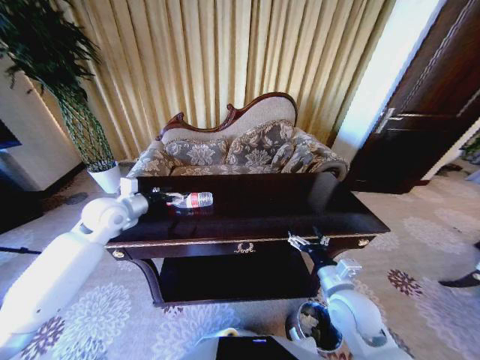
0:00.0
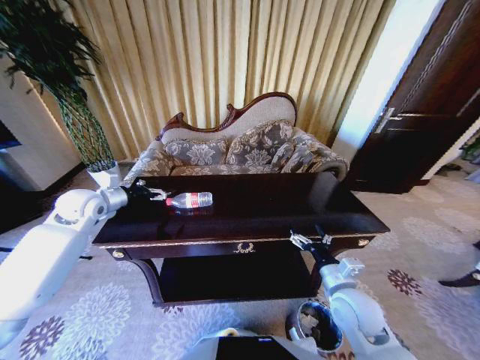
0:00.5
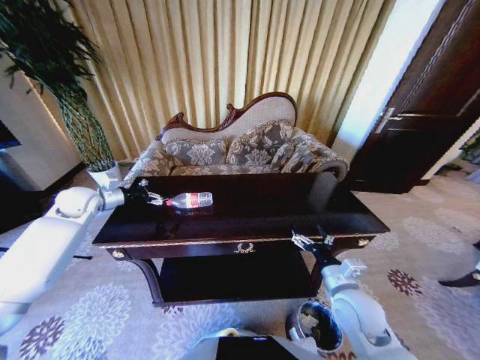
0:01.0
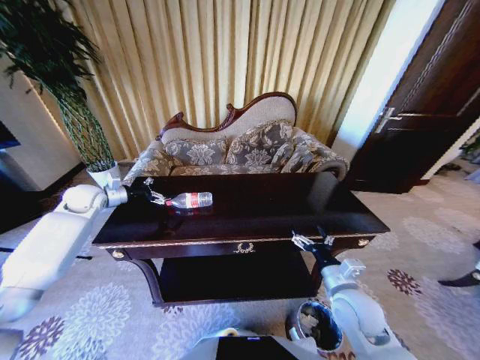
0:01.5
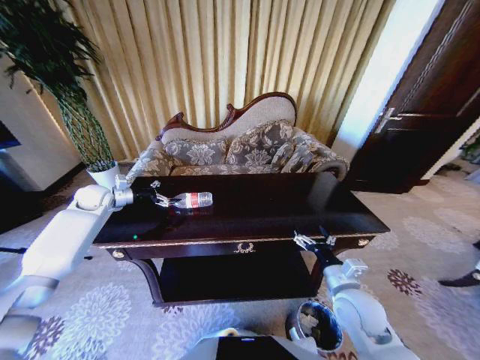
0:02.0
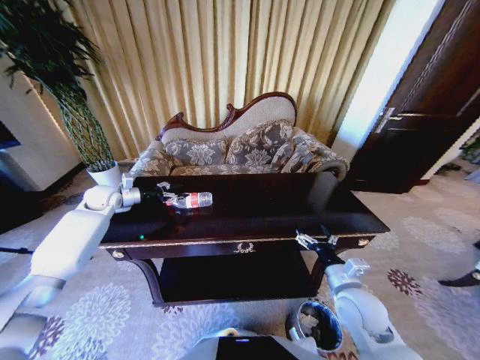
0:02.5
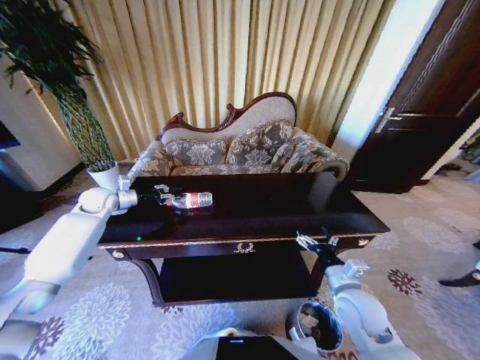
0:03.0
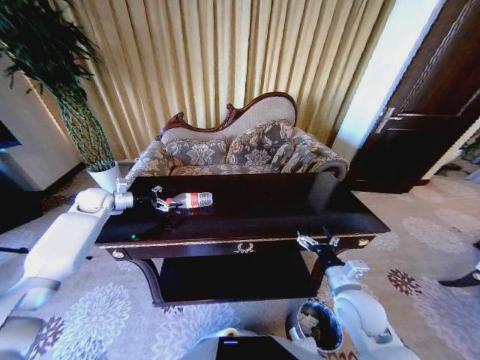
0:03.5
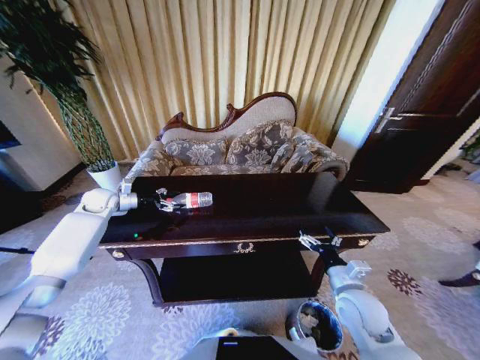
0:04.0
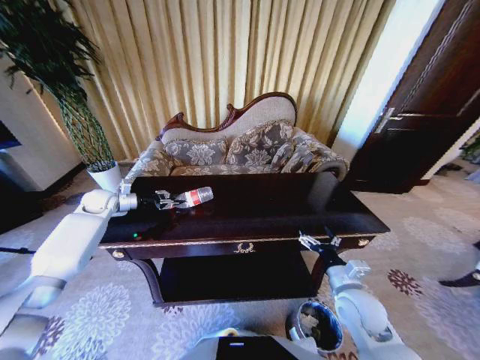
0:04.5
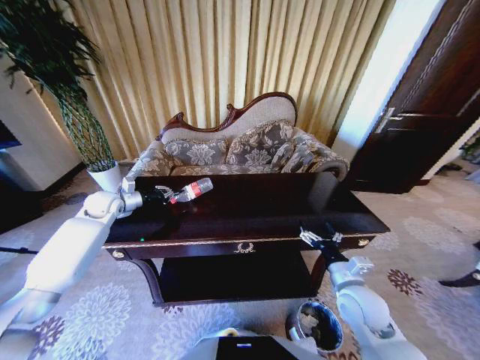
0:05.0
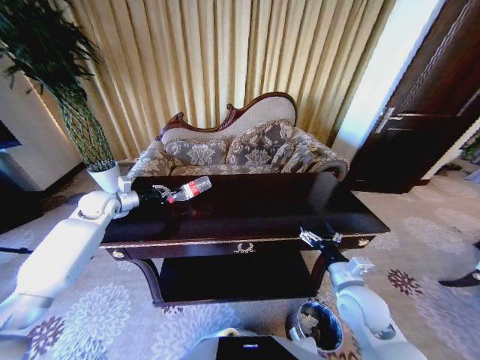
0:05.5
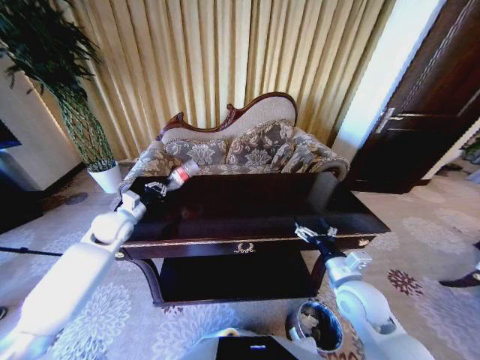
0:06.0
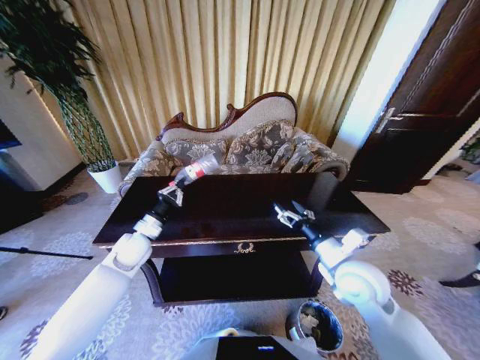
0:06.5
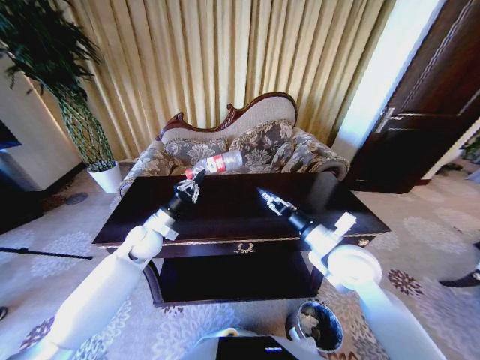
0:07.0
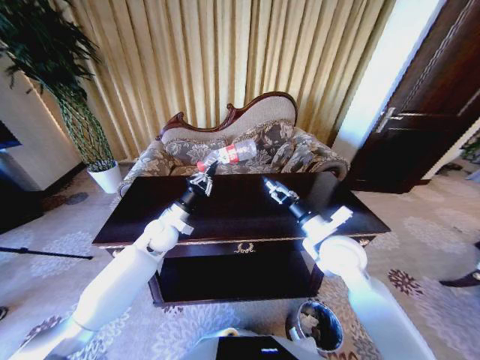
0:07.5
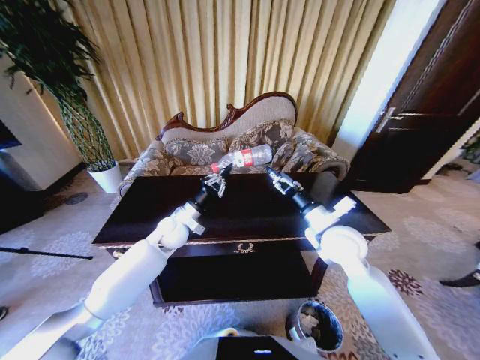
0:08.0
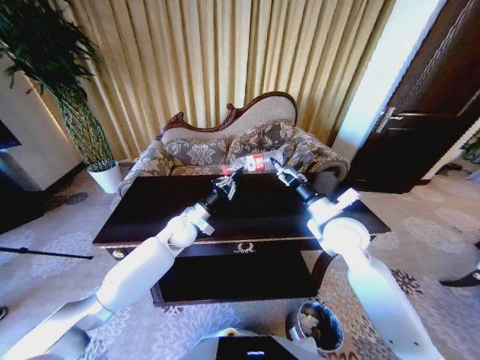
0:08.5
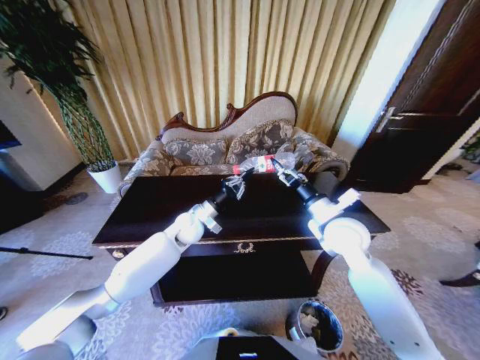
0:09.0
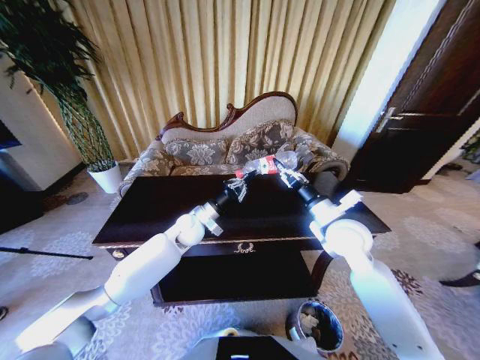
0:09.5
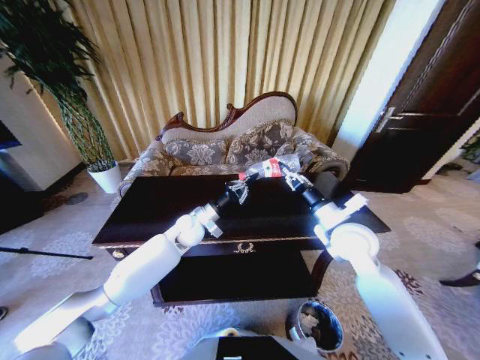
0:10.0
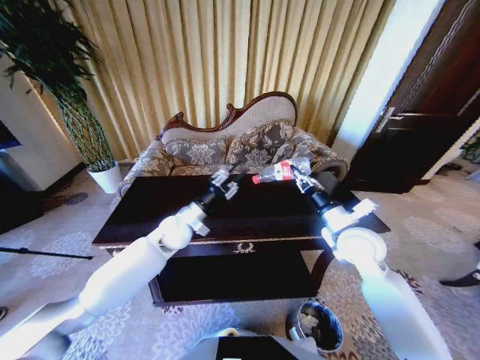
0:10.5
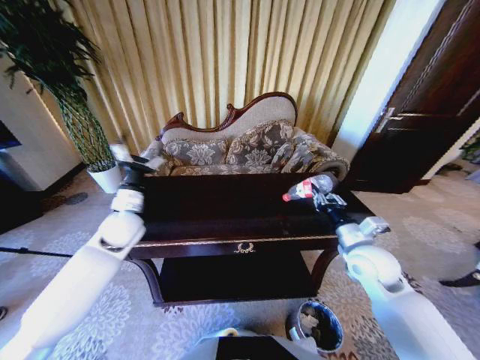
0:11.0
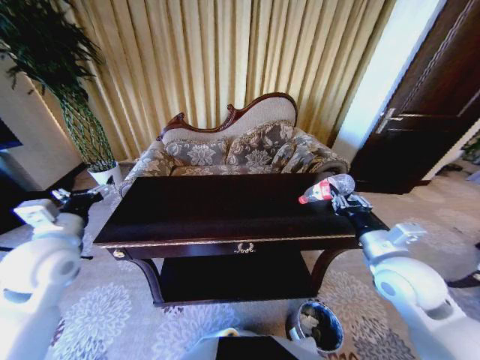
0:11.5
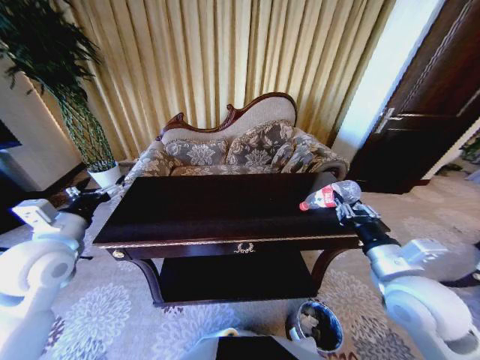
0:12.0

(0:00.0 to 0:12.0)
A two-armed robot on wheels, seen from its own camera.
Task of the whole recording: Move to the front of the table and place the trash on the table into the trash bin.
0:00.0 - 0:02.0: The left gripper shifts about 15 cm to the left and forward.
0:02.0 - 0:04.0: The left gripper closes, then reopens.
0:04.0 - 0:06.0: The left gripper is displaced backward and to the right by some 15 cm, and closes.
0:06.0 - 0:08.0: The right gripper goes roughly 15 cm forward and upward, while the left gripper moves to the right, about 15 cm.
0:08.0 - 0:10.0: The right gripper closes its fingers, while the left gripper changes place by roughly 5 cm.
0:10.0 - 0:12.0: The right gripper shifts roughly 15 cm backward. Meanwhile the left gripper shifts some 30 cm to the left, backward and upward, and opens up.

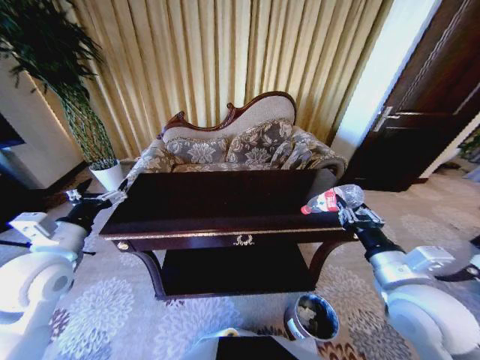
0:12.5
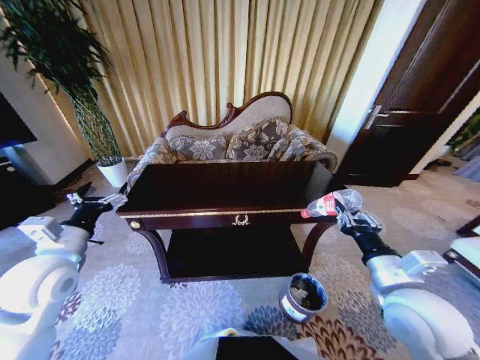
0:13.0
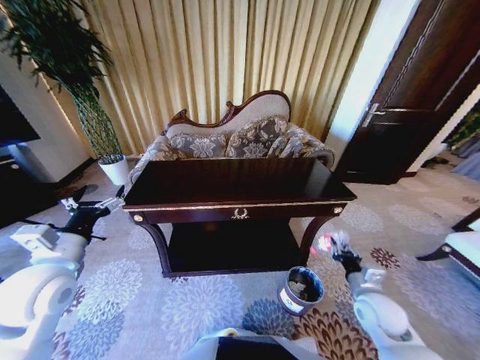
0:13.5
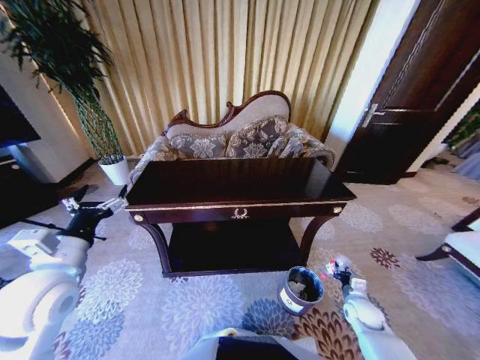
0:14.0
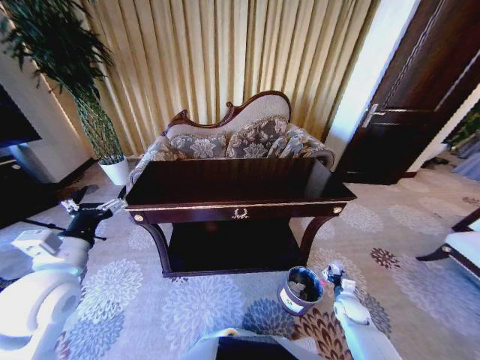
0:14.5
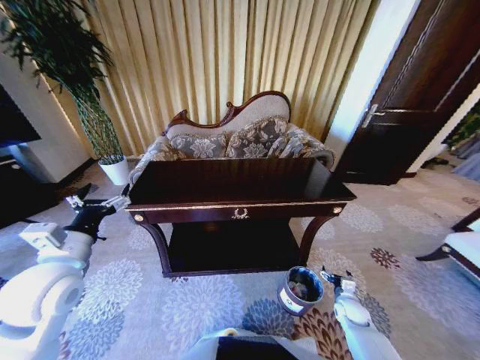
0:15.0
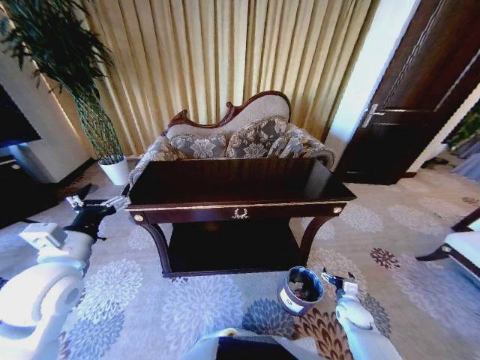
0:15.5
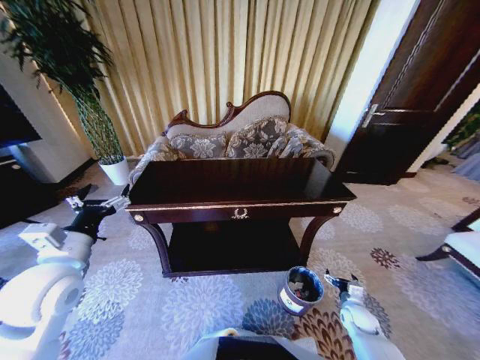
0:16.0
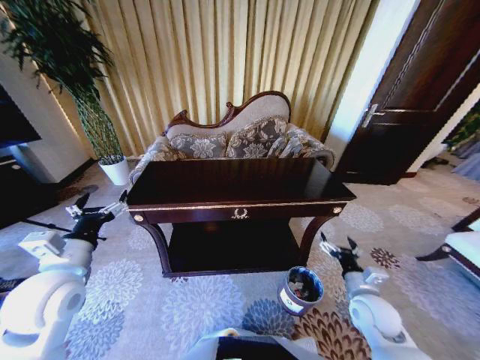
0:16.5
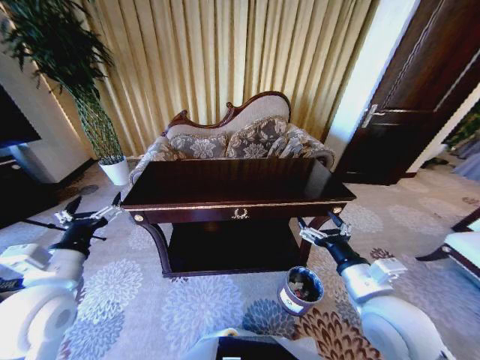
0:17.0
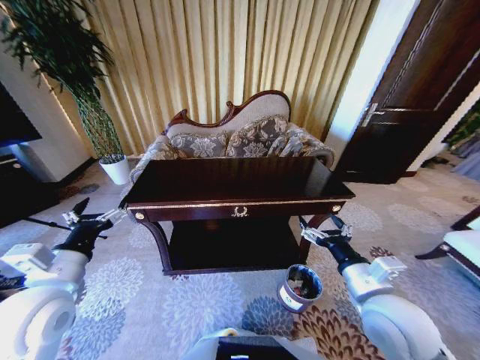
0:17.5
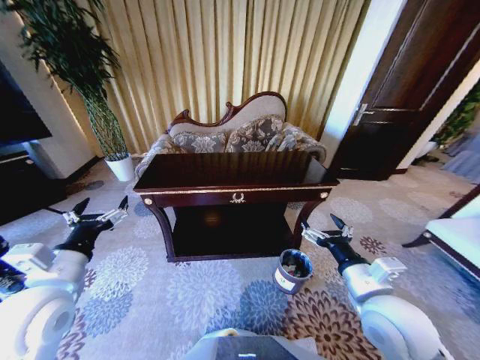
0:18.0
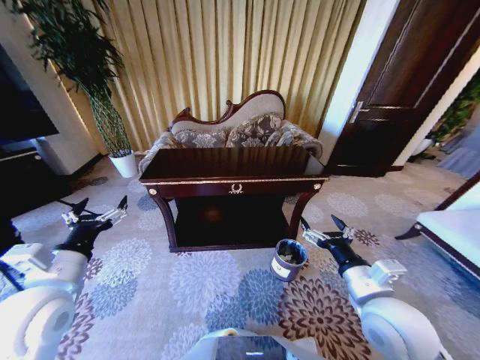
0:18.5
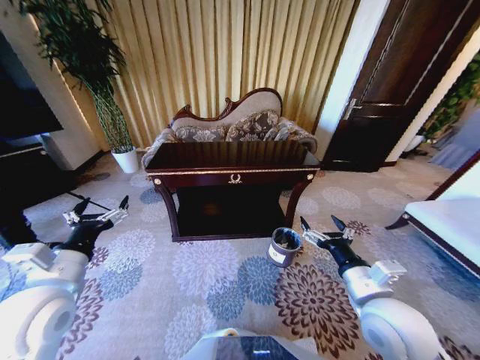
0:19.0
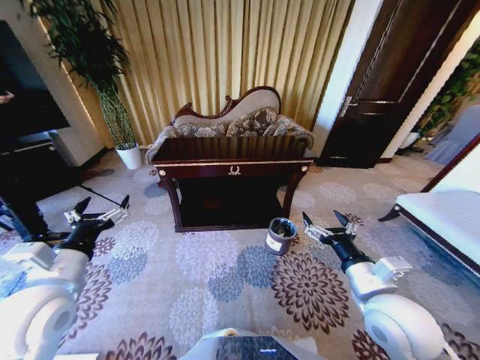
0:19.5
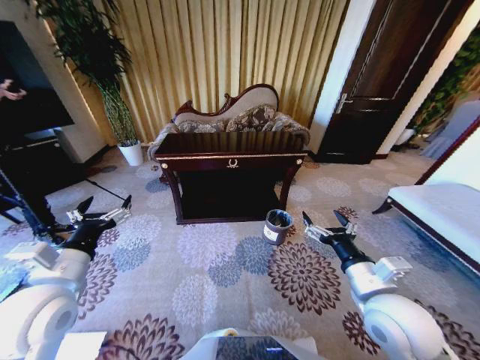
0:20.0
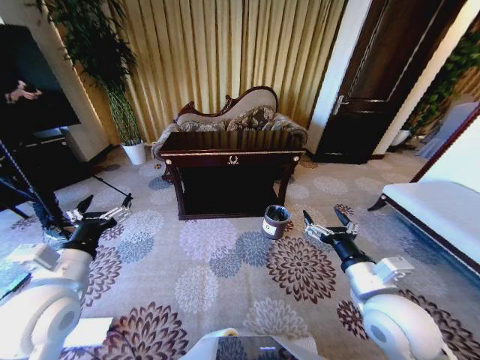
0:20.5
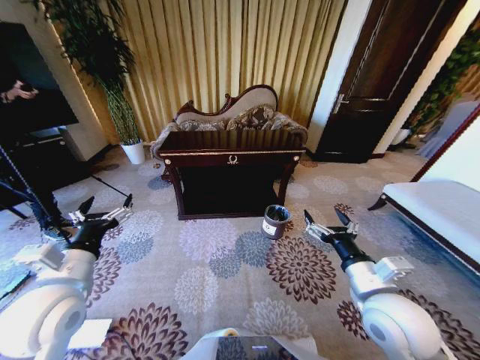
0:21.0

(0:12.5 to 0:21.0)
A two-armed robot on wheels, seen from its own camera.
Task of the whole recording: Move to the front of the table and place the trash on the table into the trash bin.
0:12.5 - 0:14.5: The right gripper travels downward by approximately 35 cm.
0:14.5 - 0:16.5: The right gripper goes about 15 cm upward, and opens its fingers.
0:16.5 - 0:19.0: The right gripper is displaced upward and to the left by roughly 20 cm.

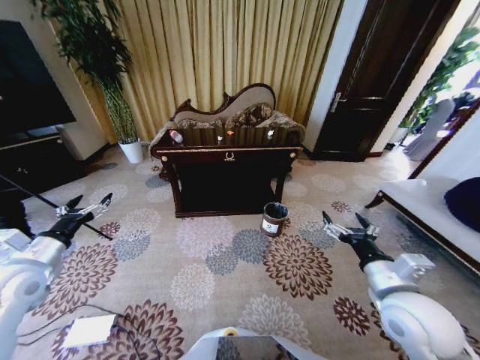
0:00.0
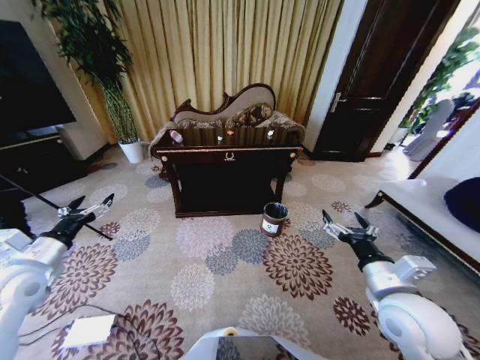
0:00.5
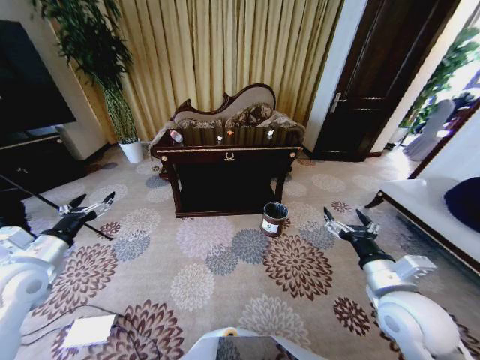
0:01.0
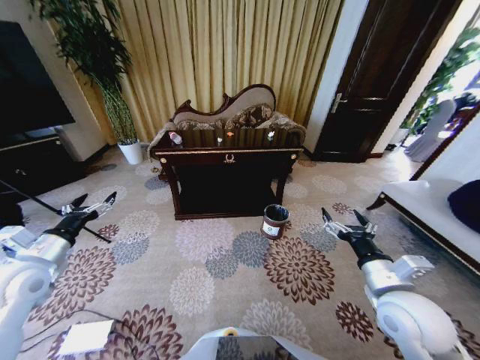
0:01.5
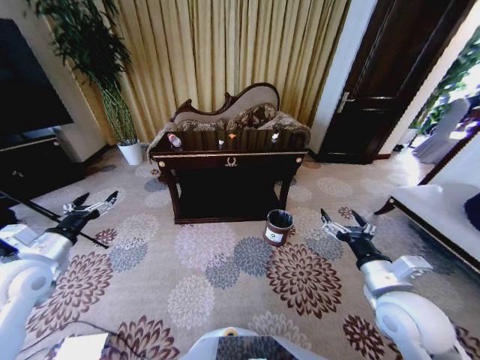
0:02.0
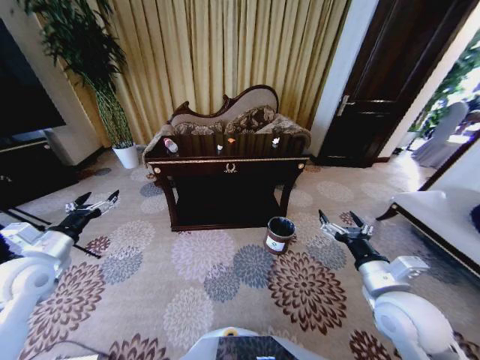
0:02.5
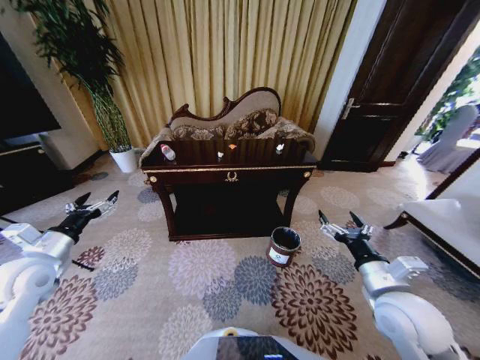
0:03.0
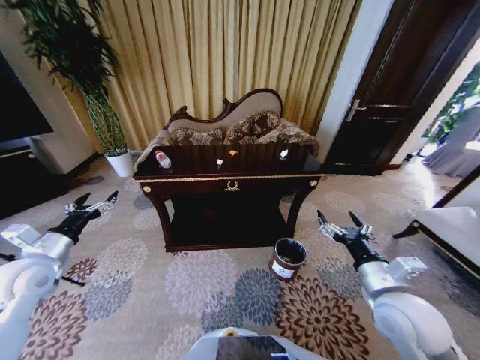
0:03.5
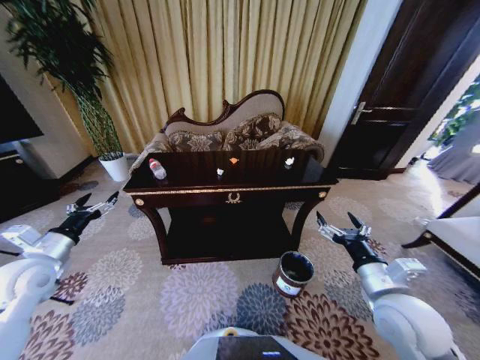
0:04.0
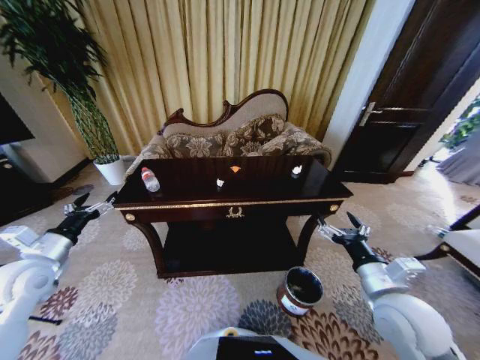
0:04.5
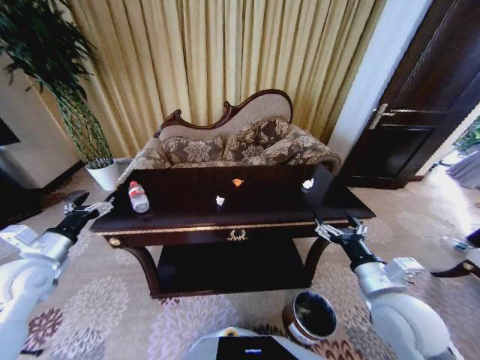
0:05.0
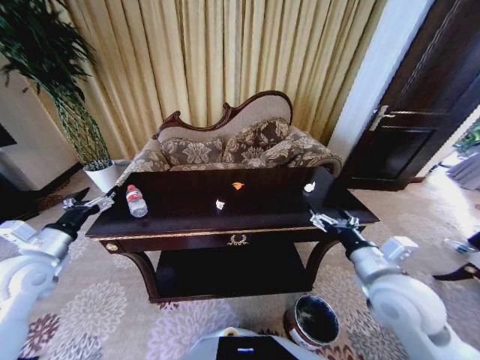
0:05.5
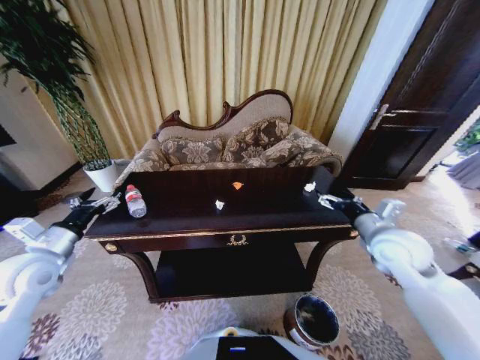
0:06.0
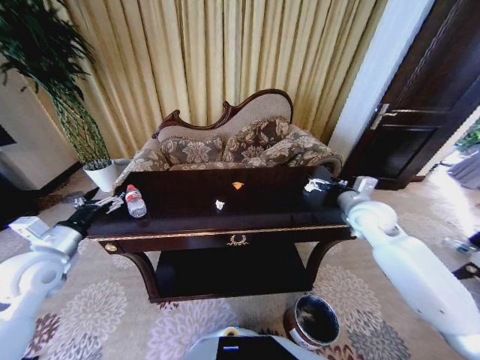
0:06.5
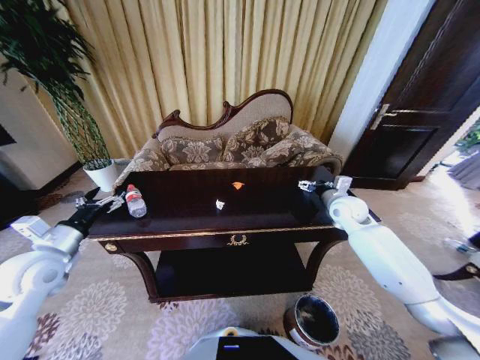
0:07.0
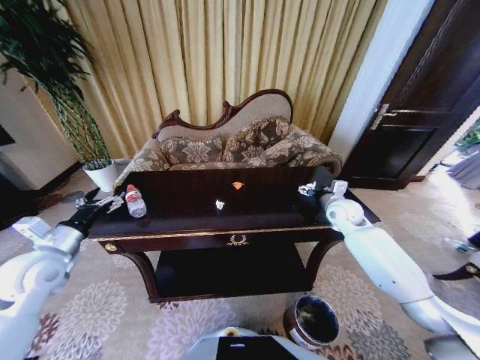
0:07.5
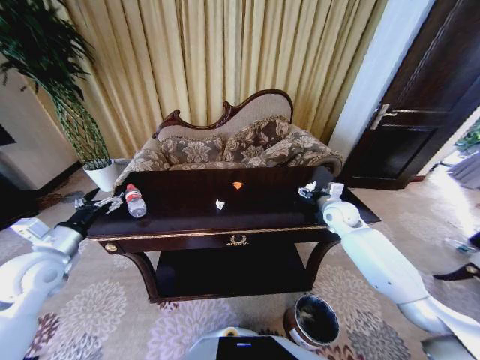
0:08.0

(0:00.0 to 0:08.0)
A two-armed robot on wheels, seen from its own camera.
Task of the whole recording: Move to the front of the table and place the trash on the table into the trash bin.
0:04.0 - 0:06.0: The right gripper heads forward and to the right, covering roughly 15 cm.
0:06.0 - 0:08.0: The right gripper heads forward and downward, covering some 15 cm.
